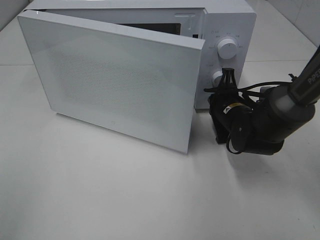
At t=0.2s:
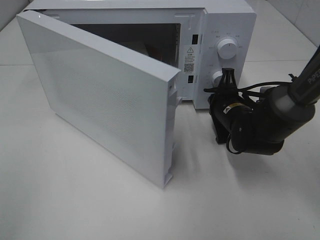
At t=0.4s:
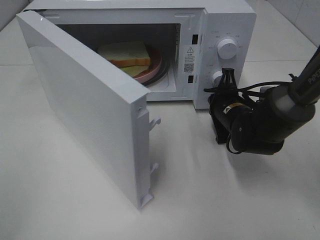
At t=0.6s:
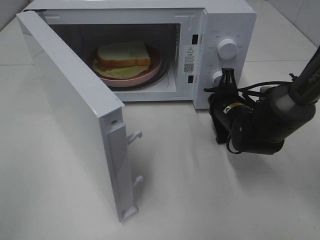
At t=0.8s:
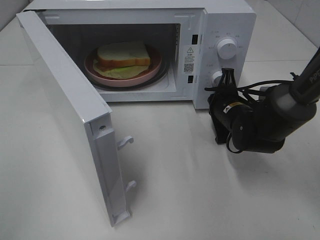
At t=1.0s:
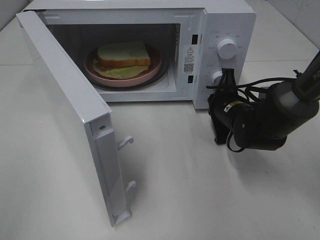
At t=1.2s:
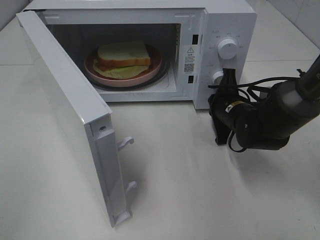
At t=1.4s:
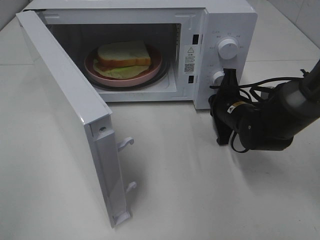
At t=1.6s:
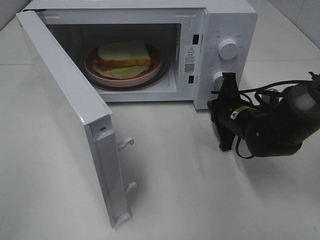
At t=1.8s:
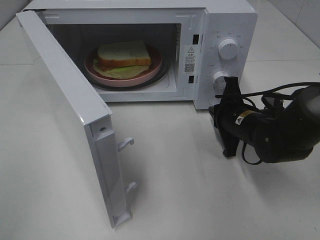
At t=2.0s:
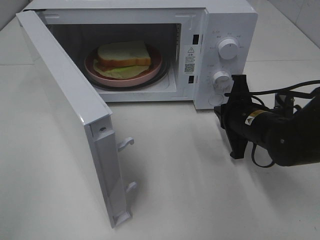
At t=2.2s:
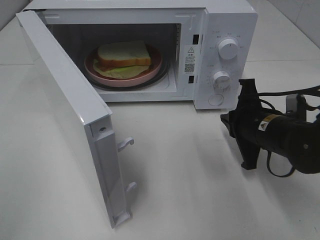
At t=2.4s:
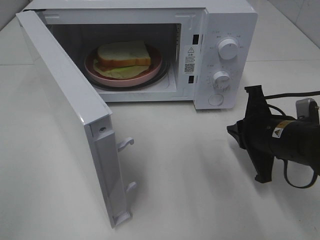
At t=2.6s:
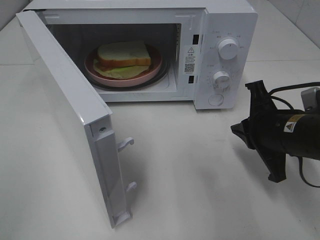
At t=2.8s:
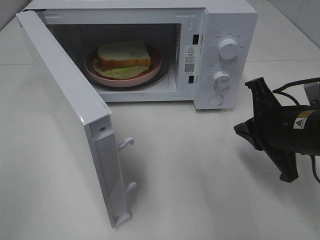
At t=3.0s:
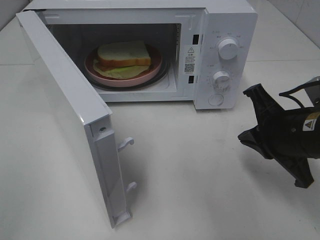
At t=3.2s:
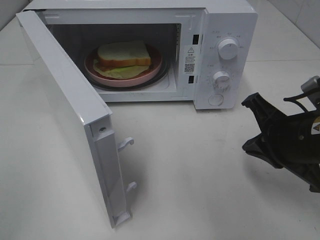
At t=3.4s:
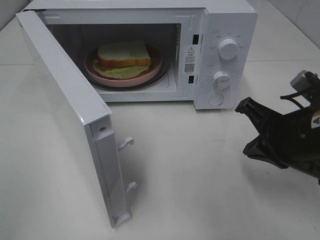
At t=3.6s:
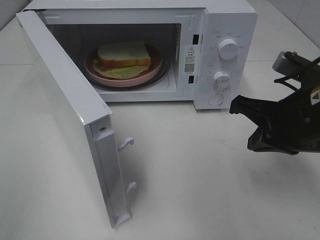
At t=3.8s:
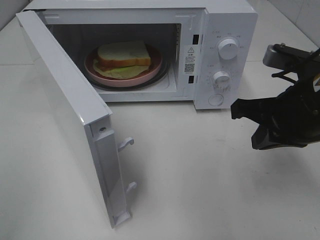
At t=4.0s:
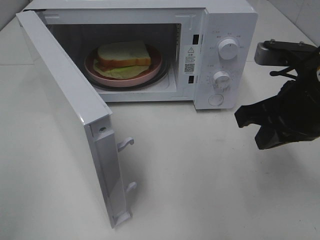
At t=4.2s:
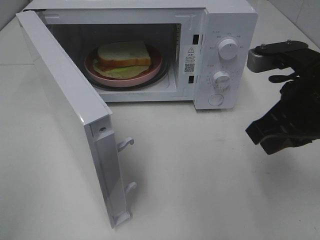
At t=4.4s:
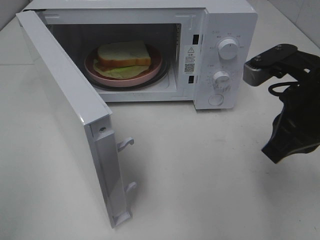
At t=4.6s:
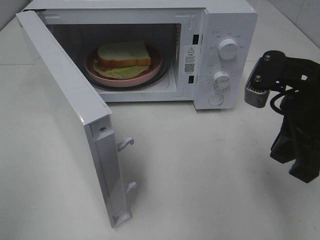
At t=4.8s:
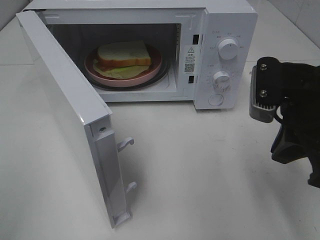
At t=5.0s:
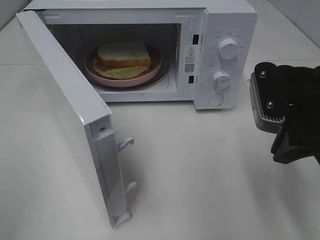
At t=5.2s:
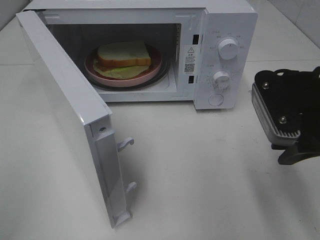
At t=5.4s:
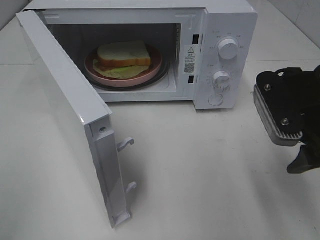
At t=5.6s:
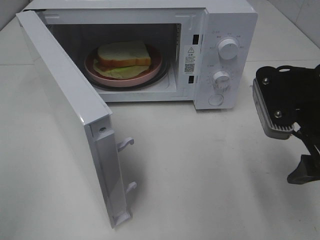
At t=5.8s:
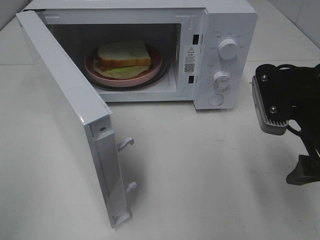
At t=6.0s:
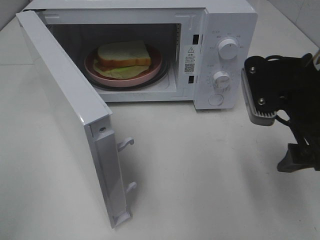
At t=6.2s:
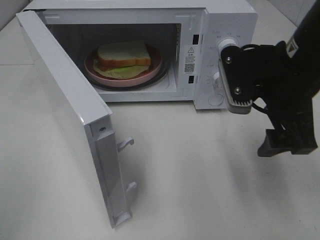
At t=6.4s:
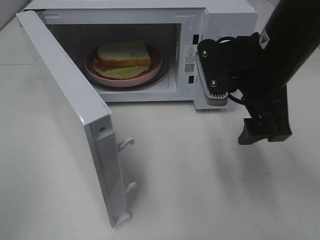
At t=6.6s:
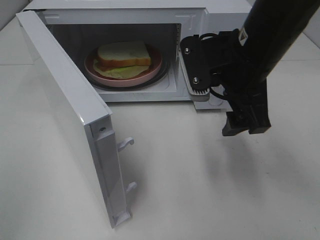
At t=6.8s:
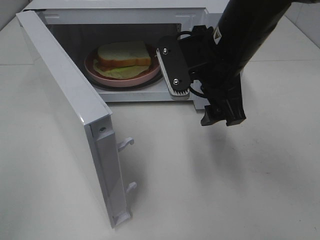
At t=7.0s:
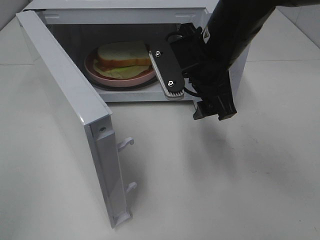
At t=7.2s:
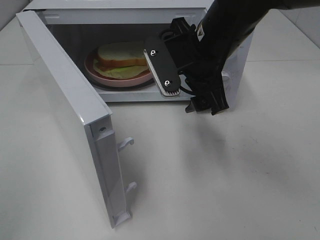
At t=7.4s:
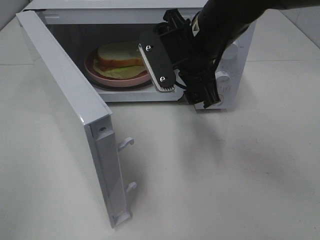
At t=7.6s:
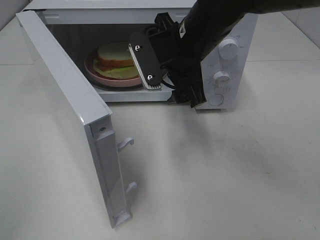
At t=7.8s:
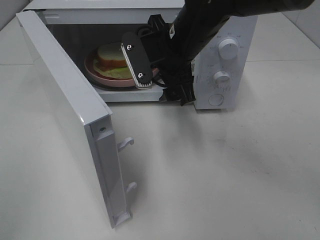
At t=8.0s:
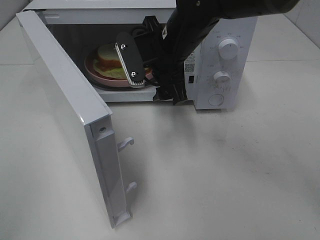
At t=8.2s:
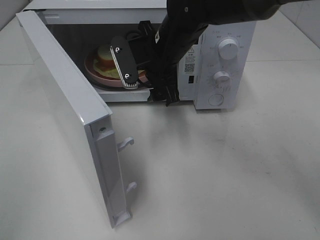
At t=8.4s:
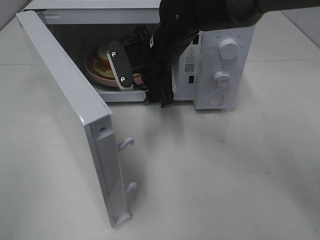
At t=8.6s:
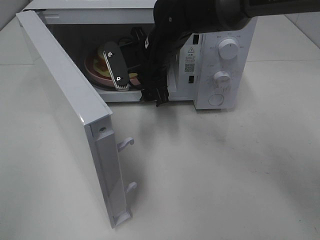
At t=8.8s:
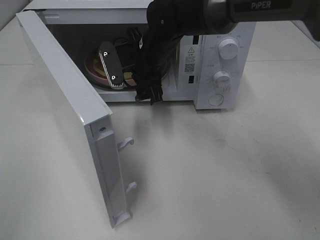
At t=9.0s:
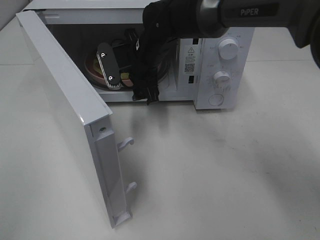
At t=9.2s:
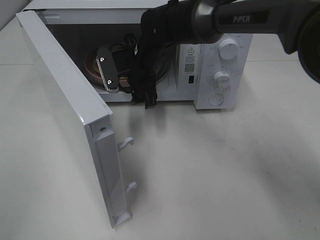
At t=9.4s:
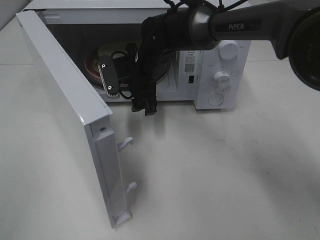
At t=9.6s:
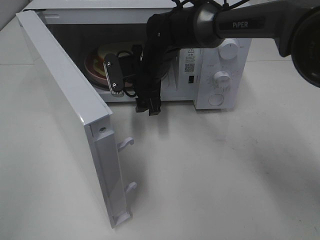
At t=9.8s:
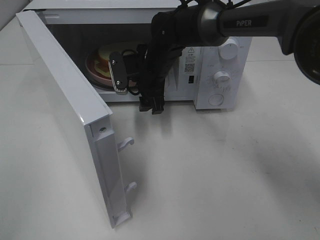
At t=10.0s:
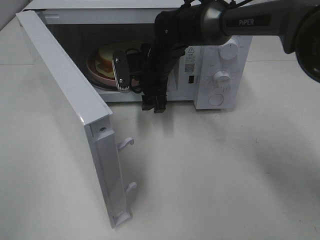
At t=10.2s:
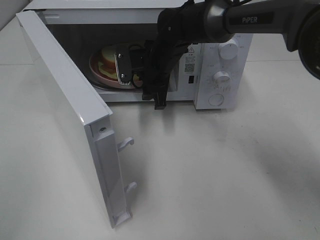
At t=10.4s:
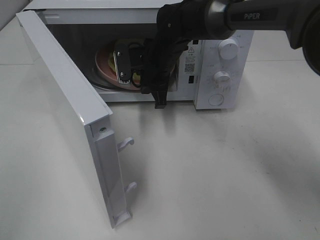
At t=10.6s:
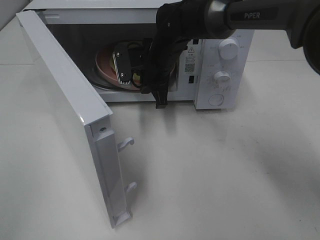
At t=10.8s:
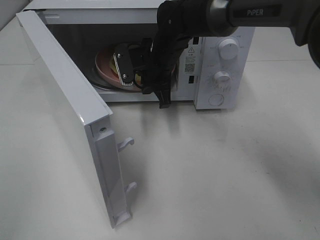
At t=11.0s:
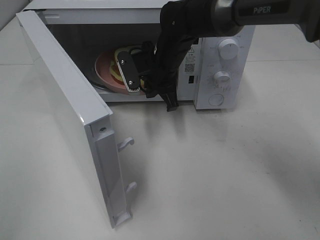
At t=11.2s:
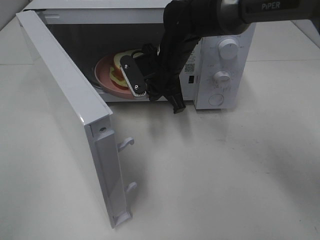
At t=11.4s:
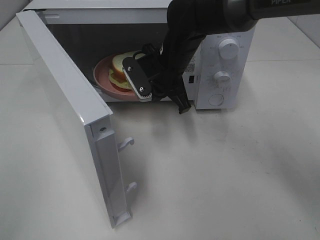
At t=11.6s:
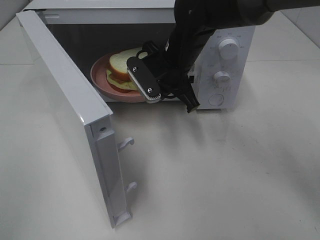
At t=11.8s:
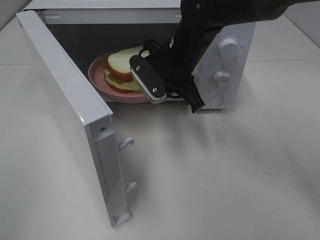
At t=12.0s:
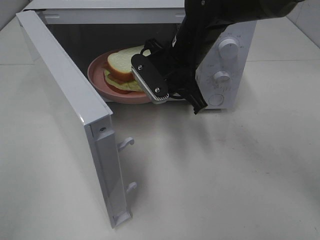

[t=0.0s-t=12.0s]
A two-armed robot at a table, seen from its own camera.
Task of the whole recording: Heat Sandwich.
Step, t=1.8s to t=10.8s: Right hand: grab the plate with the sandwich.
t=1.6s to t=3.0s: The right gripper travels backward and upward by approximately 15 cm.
t=3.0s to t=4.4s: The right gripper goes about 5 cm upward.
t=4.4s to t=6.0s: The right gripper opens.
t=6.0s to t=7.6s: The right gripper shifts about 15 cm to the left and forward.
t=7.6s to t=9.0s: The right gripper goes approximately 10 cm forward, to the left and downward.
t=9.0s to t=10.4s: The right gripper closes its fingers.
t=10.4s to t=12.0s: The right gripper shifts approximately 5 cm backward.

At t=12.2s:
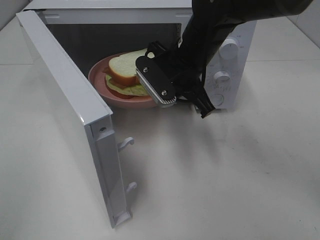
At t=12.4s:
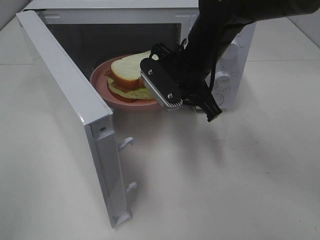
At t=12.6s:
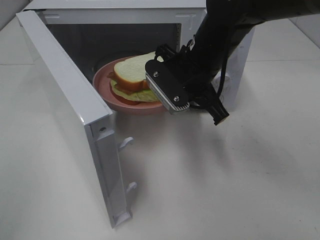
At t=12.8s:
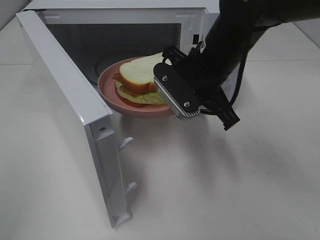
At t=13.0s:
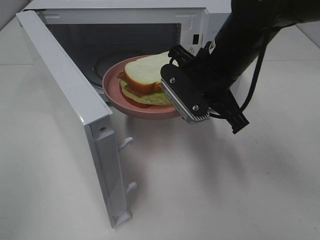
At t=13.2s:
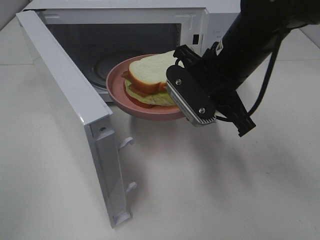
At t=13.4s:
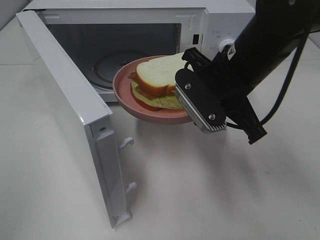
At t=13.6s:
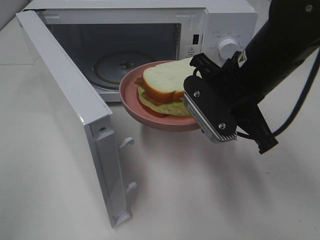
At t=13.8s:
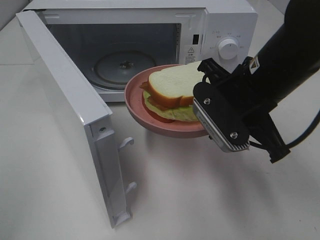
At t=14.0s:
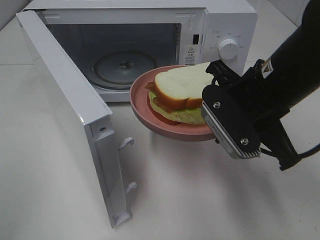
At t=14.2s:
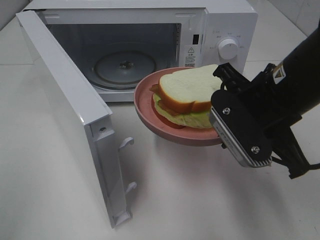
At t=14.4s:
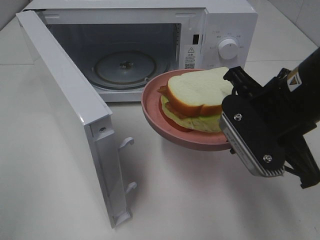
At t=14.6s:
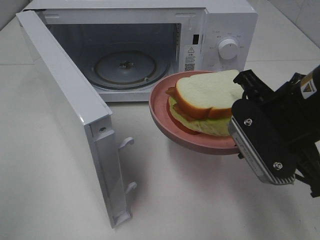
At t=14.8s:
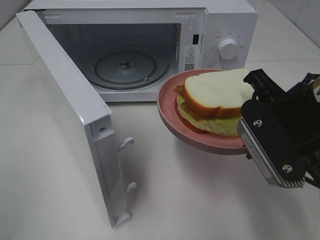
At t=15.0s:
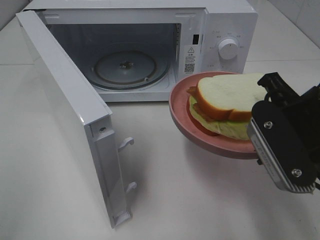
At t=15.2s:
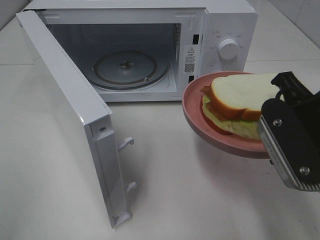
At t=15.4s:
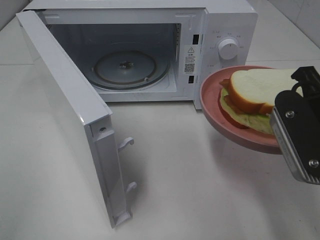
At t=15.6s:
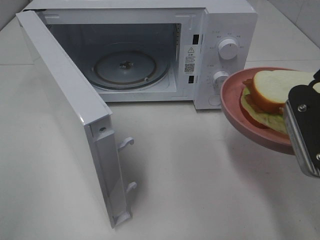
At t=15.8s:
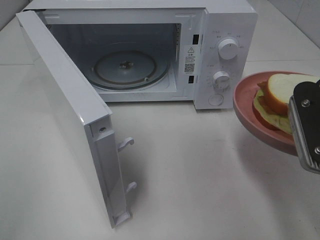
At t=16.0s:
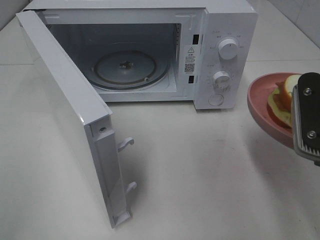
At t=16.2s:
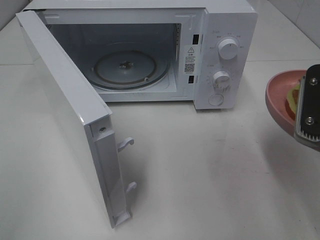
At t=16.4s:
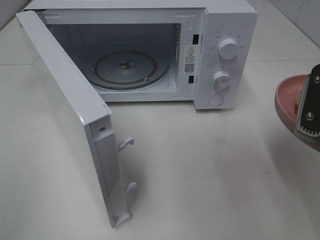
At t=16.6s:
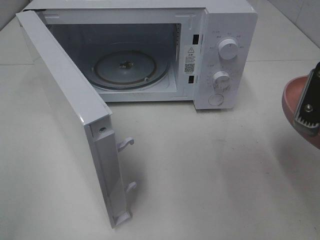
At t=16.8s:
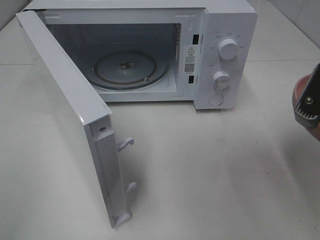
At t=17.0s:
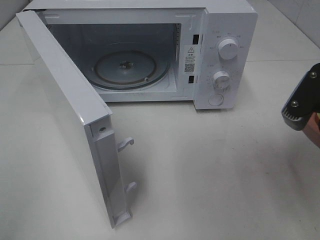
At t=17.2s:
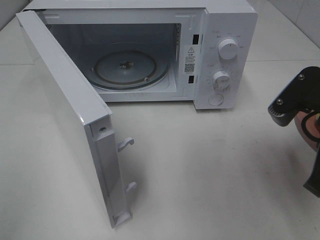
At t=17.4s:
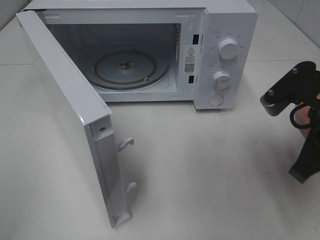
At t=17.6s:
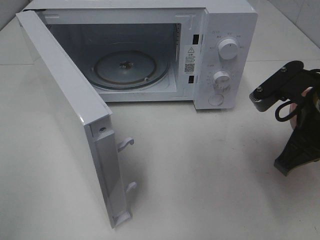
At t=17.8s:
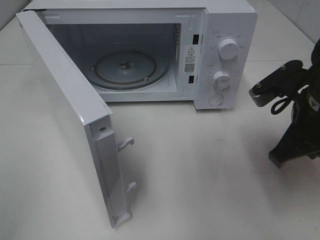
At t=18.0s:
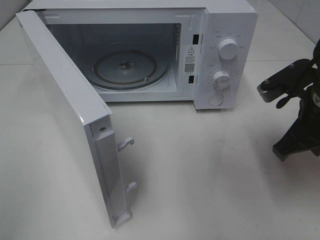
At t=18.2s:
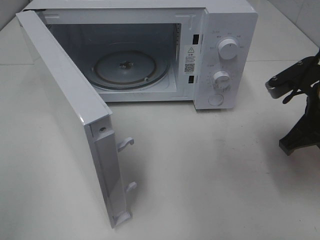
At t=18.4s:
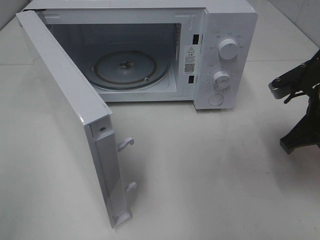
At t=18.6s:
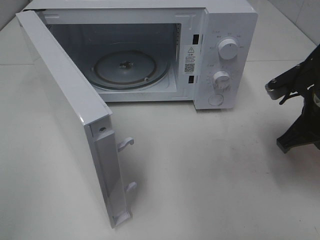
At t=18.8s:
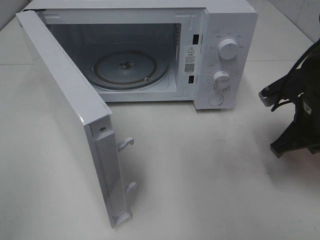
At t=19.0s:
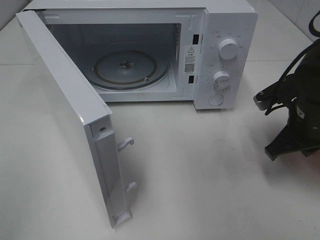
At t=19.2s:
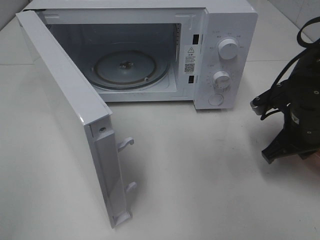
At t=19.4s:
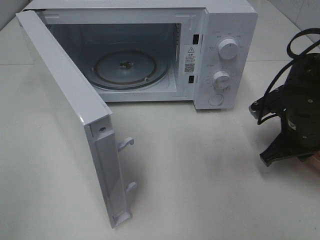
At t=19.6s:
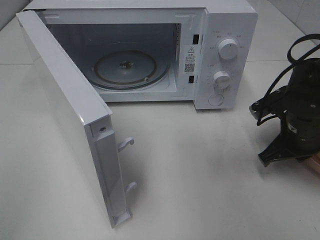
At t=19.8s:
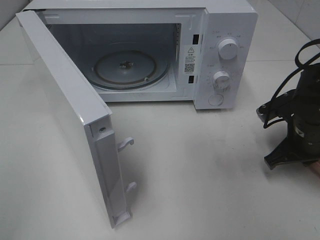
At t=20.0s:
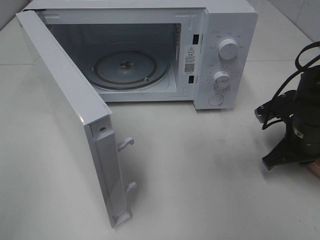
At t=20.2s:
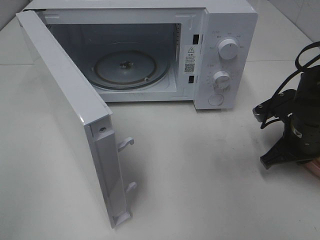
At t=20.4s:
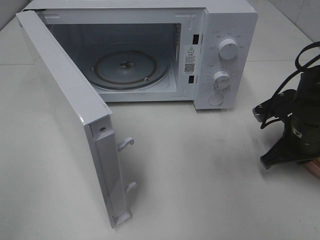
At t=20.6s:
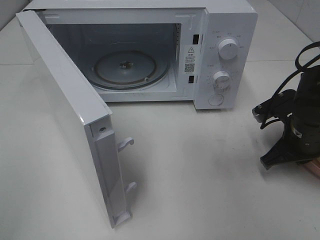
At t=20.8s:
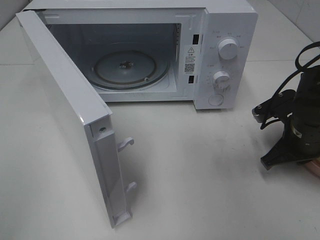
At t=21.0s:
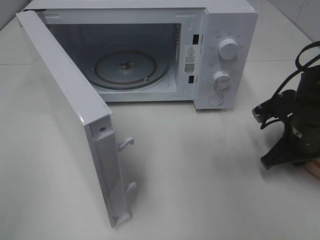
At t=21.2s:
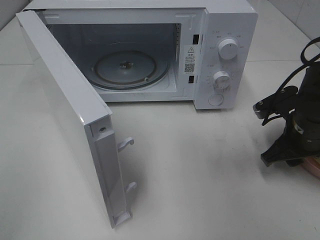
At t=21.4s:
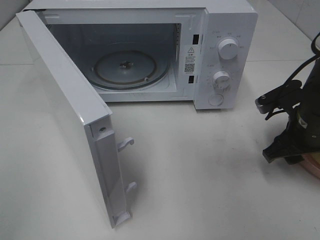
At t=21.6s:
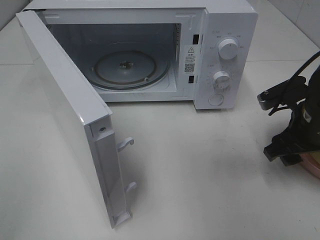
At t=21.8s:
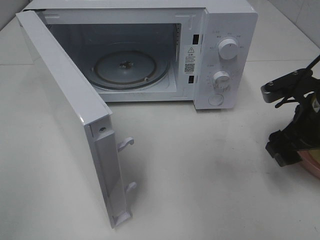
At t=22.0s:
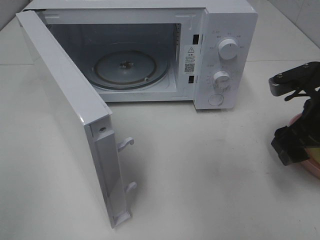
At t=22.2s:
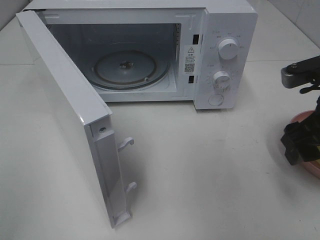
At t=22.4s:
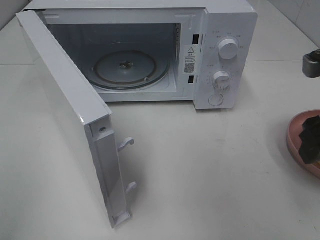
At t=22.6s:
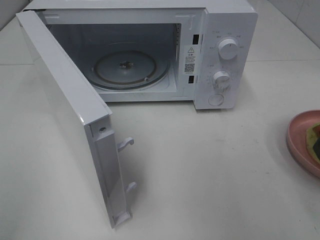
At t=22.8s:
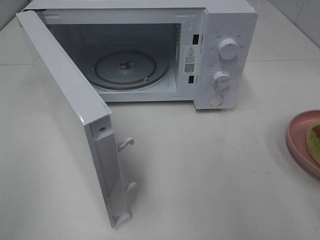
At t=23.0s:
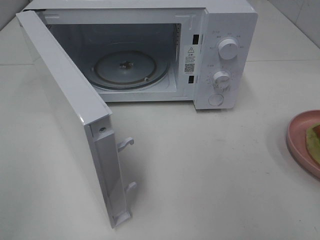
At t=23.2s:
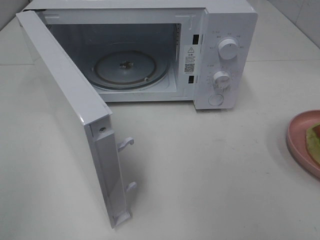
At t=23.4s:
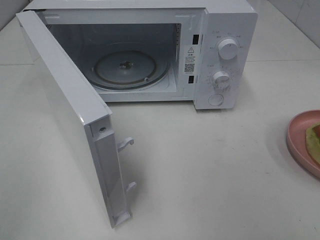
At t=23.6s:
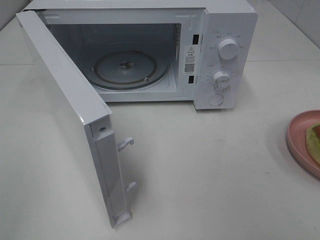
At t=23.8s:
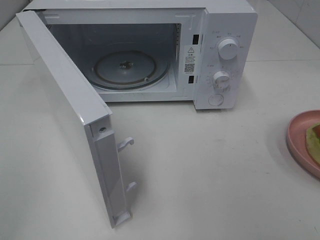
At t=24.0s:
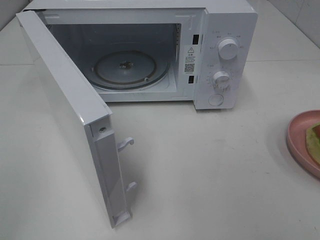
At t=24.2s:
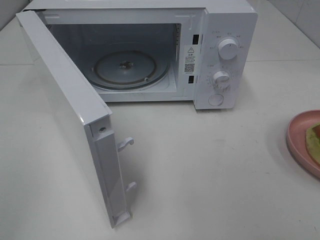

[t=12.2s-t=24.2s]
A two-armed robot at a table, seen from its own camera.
Task of the whole recording: Heat Sandwich.
Step, t=12.2s to t=21.2s: Right hand: place the plate on the table.
t=12.2s to t=13.8s: The right gripper goes approximately 10 cm backward and to the right.
t=13.8s to t=15.2s: The right gripper moves backward and to the right, about 10 cm.
t=16.6s to t=18.2s: The right gripper travels forward and downward by approximately 10 cm.
t=18.2s to t=19.8s: The right gripper travels downward by about 10 cm.
t=19.8s to t=21.2s: The right gripper opens up.
t=21.2s to t=22.6s: The right gripper travels upward and backward by roughly 20 cm.
t=22.6s to t=24.2s: The right gripper shifts roughly 15 cm backward.
